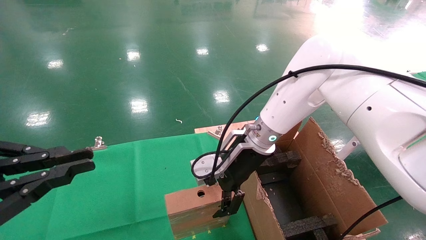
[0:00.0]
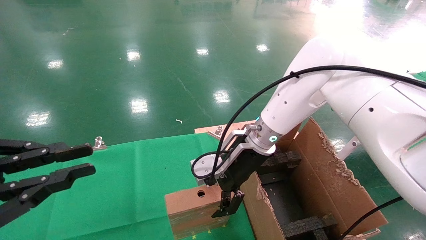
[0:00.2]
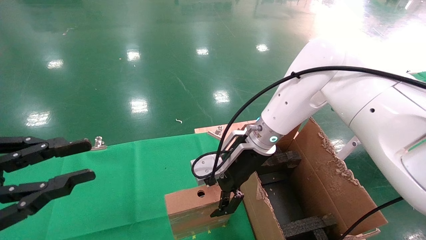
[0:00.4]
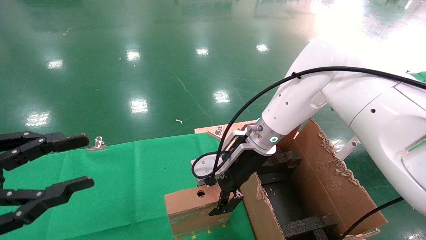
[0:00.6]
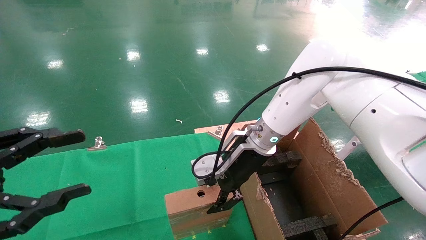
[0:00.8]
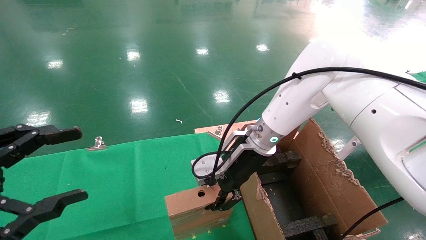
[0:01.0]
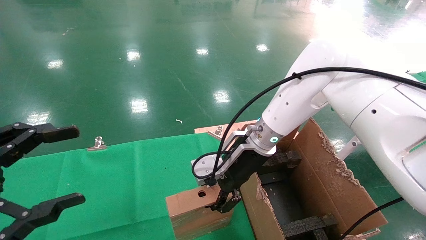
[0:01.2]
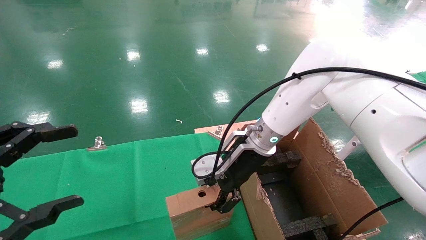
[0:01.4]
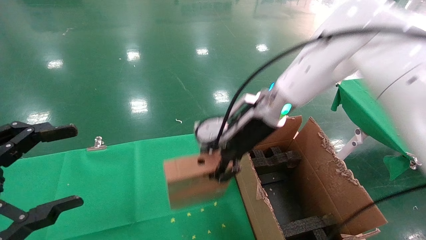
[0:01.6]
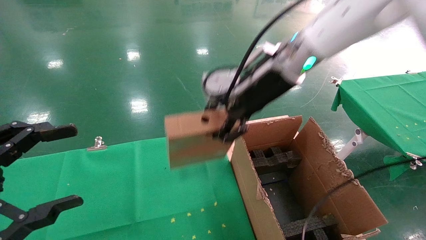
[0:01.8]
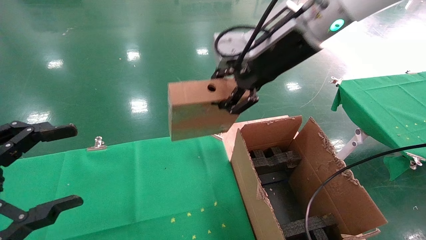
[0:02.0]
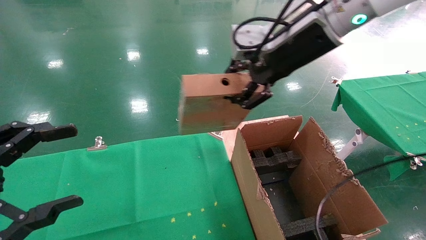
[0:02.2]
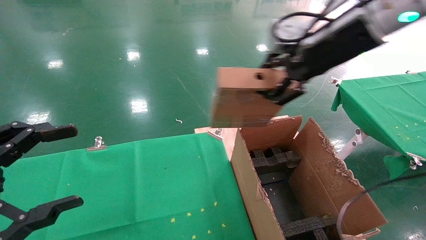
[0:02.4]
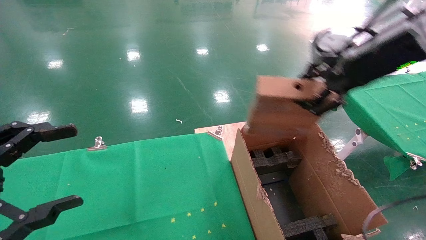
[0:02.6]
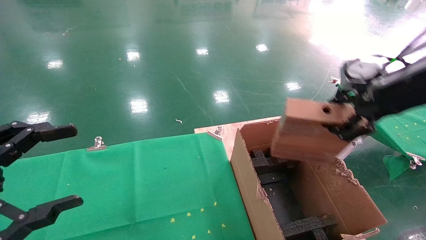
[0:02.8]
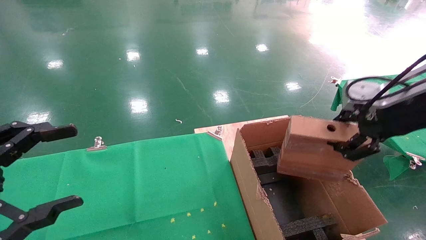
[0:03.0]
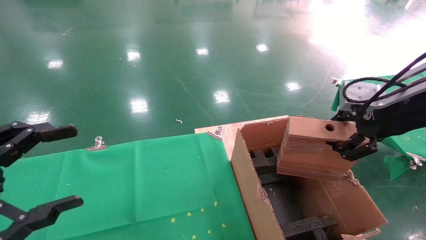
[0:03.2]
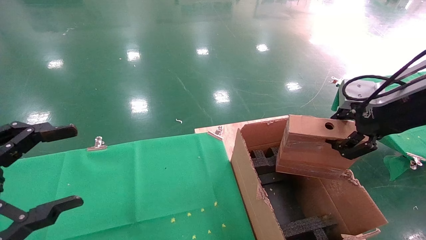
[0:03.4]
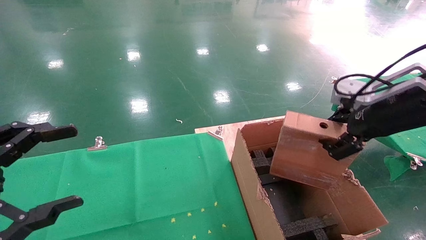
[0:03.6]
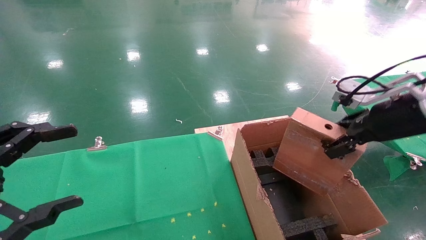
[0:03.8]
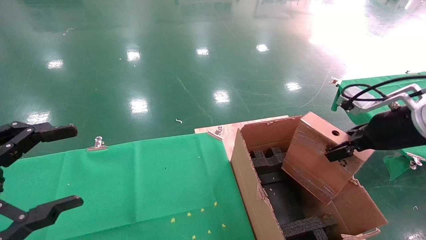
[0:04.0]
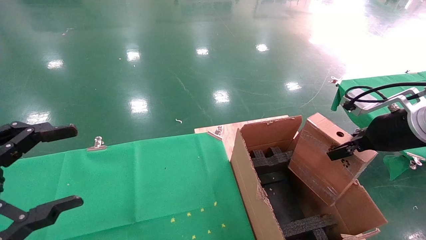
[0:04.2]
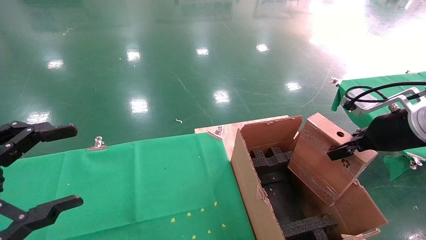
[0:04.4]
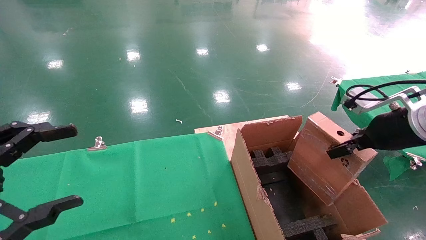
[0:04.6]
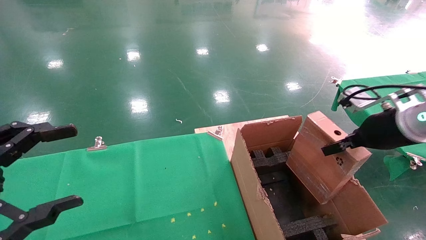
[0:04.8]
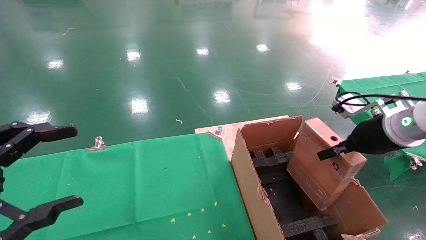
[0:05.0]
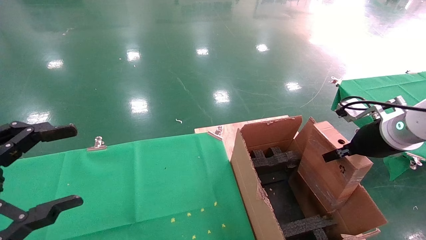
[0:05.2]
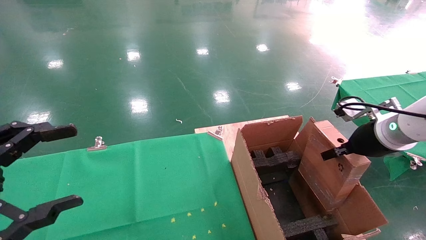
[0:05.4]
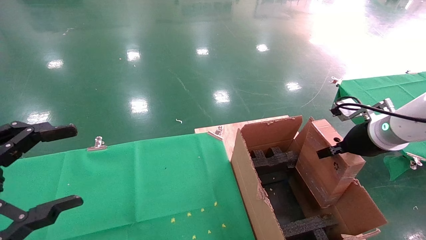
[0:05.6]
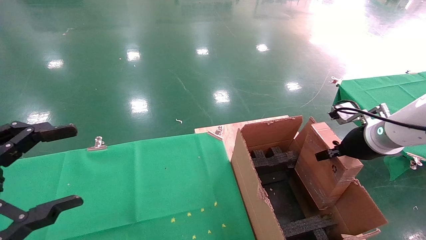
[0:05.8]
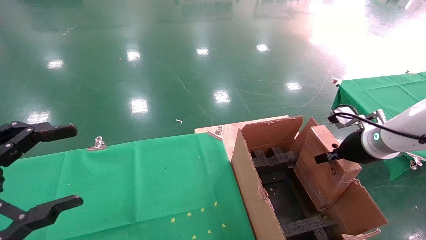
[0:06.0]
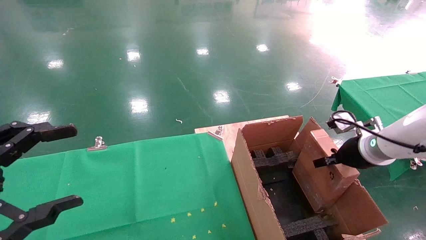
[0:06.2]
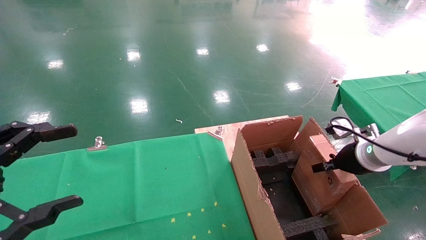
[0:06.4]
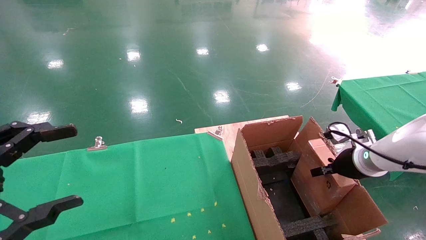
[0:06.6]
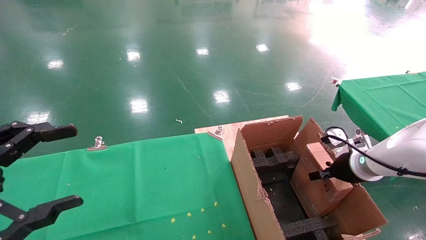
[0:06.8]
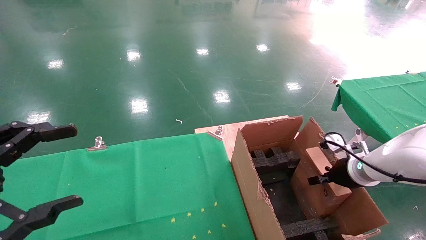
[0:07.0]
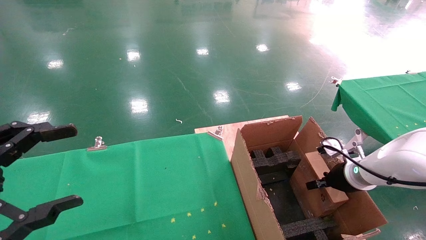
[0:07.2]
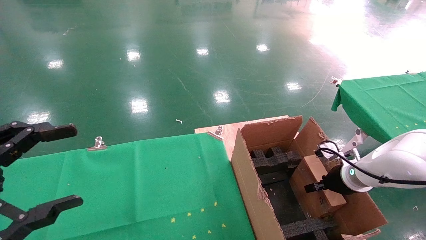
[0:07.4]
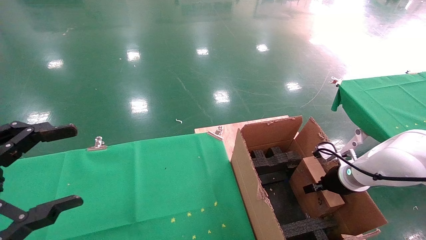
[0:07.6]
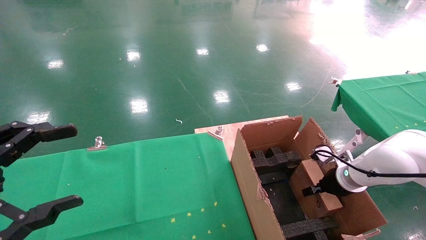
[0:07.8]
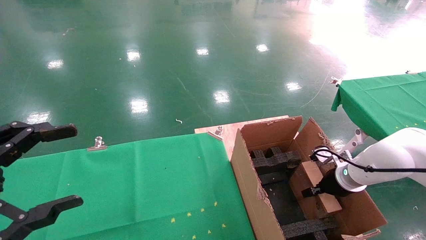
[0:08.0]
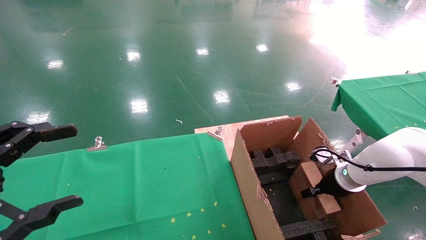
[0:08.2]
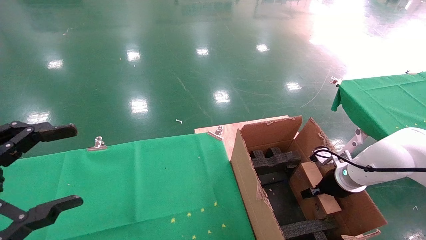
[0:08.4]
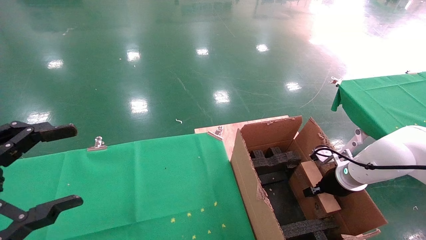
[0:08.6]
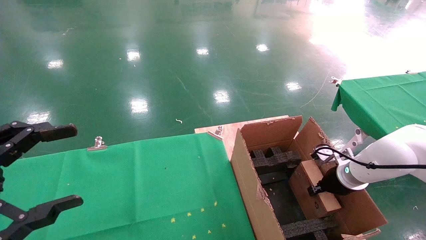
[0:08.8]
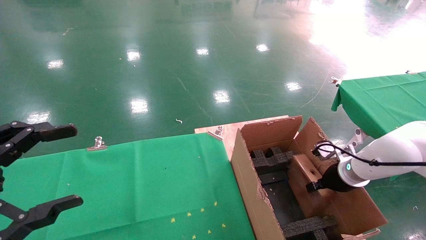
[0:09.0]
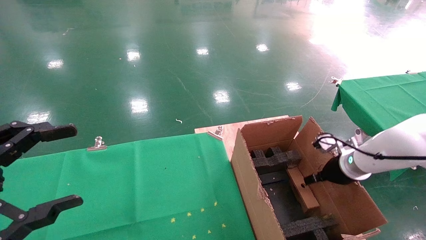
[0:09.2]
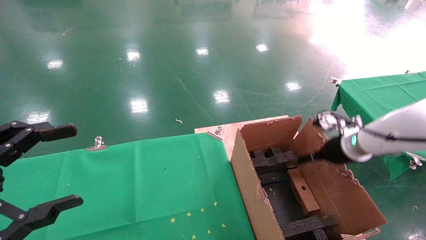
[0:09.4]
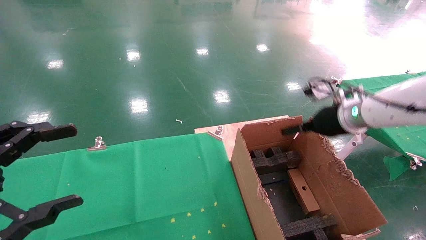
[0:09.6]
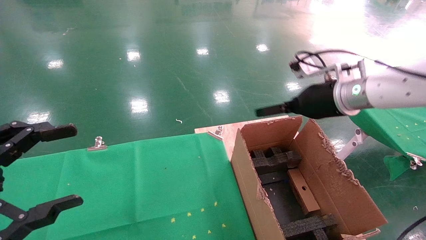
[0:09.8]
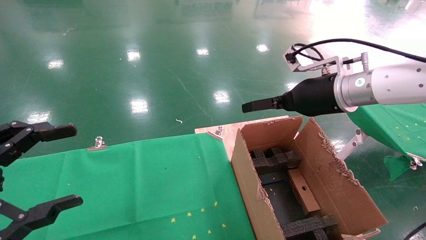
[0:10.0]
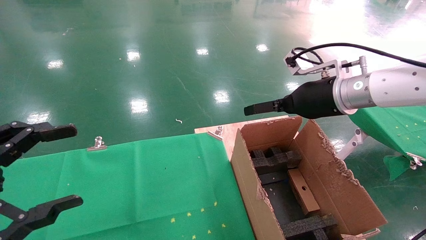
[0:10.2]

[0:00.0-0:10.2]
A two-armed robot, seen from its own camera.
Task of the whole recording: using a robotic arm to pick up a cardboard box and palace it the carton.
Step, 0:01.4 to 0:09.6: Place the mouse and the power cord paper box into the container.
0:00.0 to 0:01.4: The left gripper opens its fingers; the right gripper closes its fingers.
0:01.4 to 0:03.0: The right gripper heads to the right, backward and upward, covering roughly 30 cm.
0:03.0 to 0:04.4: The right gripper is displaced downward by some 5 cm.
0:04.4 to 0:05.8: The right gripper is displaced downward and forward by approximately 10 cm.
0:05.8 to 0:07.2: The right gripper travels downward by some 10 cm.
0:07.2 to 0:08.8: The grippers stay close to where they were, moving slightly.
0:08.8 to 0:10.2: The right gripper shifts approximately 25 cm upward and to the left, and opens.

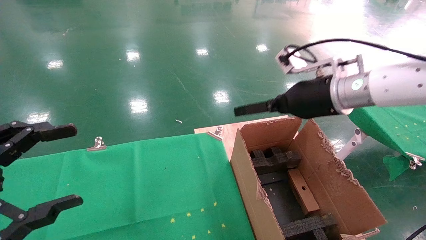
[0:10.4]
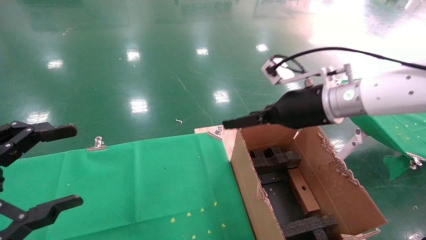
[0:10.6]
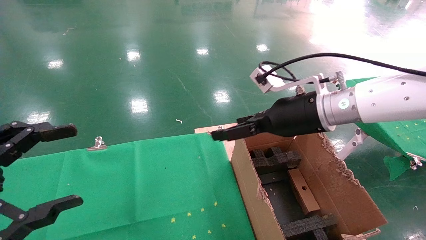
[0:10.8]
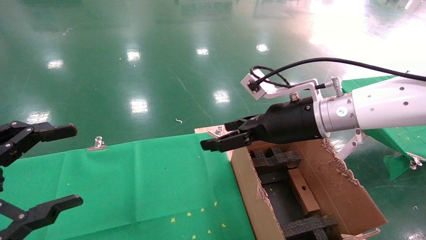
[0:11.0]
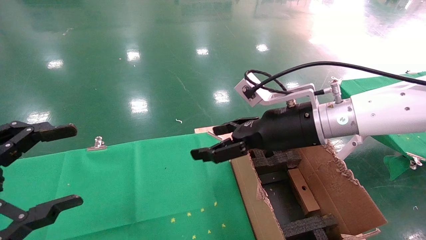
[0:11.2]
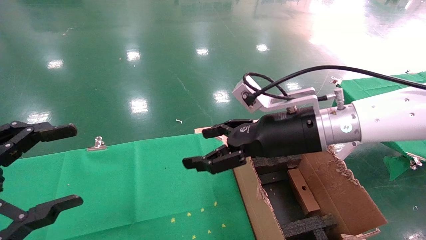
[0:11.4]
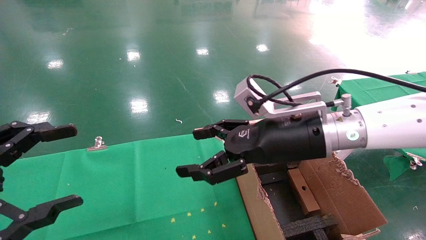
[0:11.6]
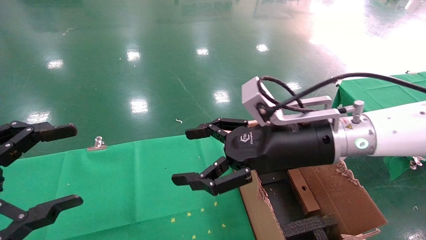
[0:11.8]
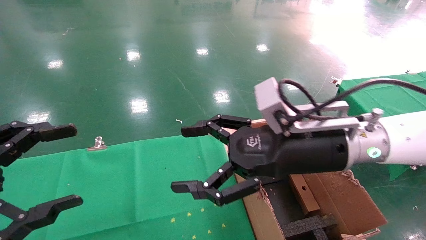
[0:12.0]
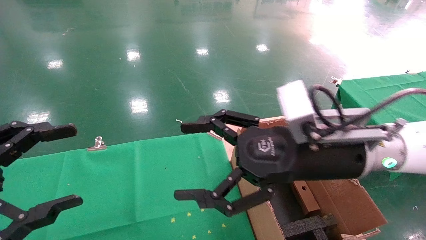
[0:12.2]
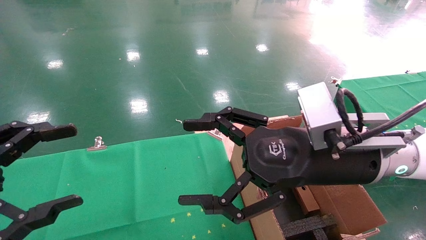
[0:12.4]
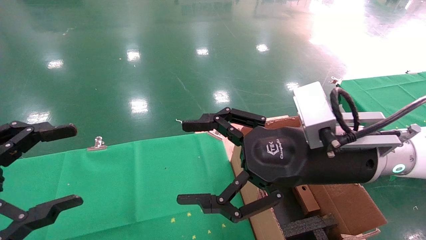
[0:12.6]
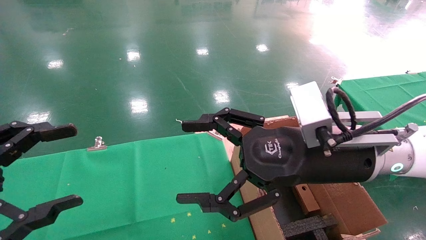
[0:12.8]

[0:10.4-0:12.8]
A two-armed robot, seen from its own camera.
Task of the whole recording: using a robotic arm to pick up a cardboard box and palace it the carton.
0:10.4 to 0:11.6: The right gripper is displaced to the left and backward by approximately 10 cm.
0:11.6 to 0:12.8: The right gripper heads backward, covering approximately 5 cm.
